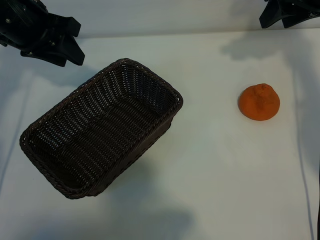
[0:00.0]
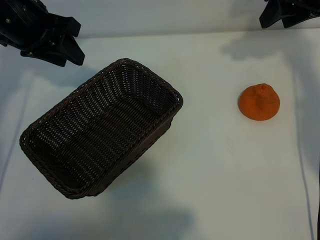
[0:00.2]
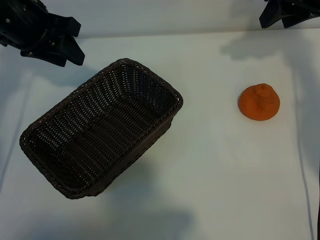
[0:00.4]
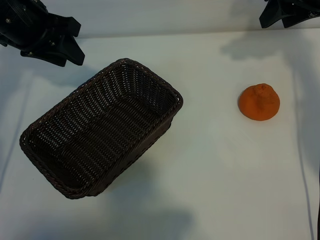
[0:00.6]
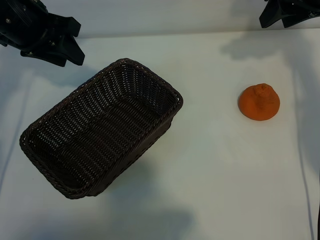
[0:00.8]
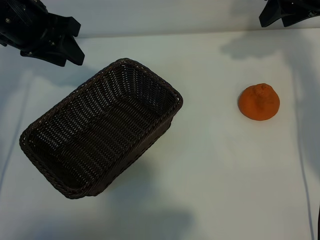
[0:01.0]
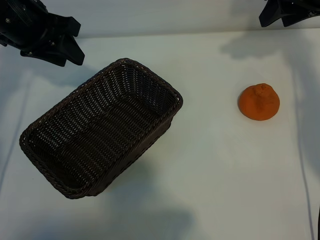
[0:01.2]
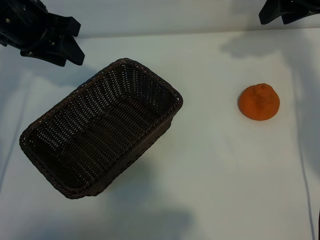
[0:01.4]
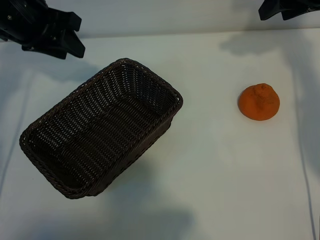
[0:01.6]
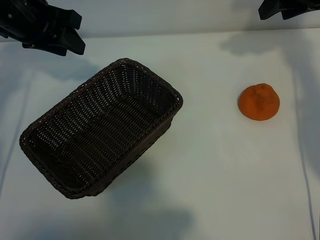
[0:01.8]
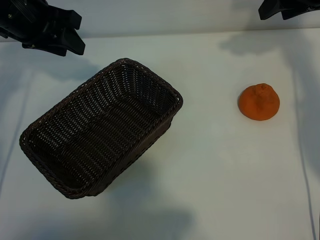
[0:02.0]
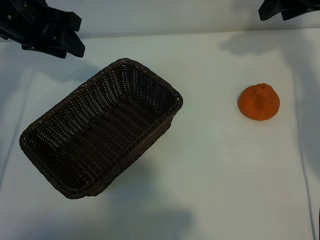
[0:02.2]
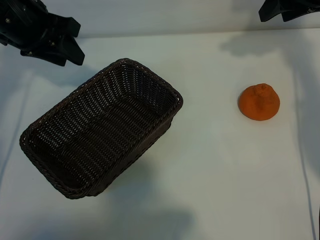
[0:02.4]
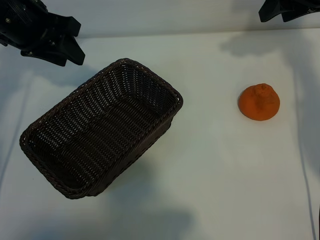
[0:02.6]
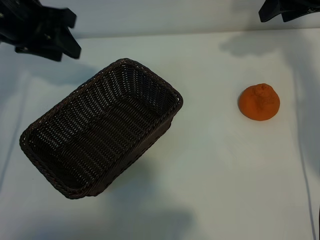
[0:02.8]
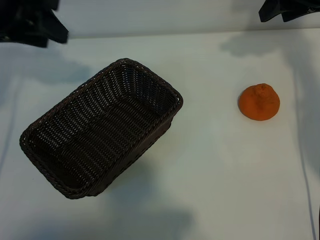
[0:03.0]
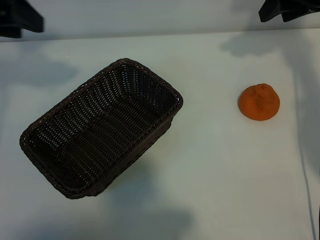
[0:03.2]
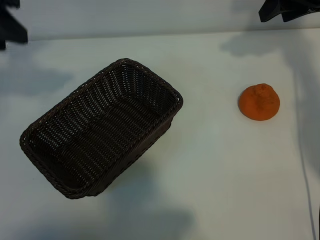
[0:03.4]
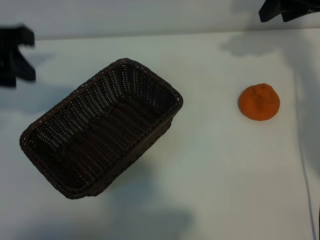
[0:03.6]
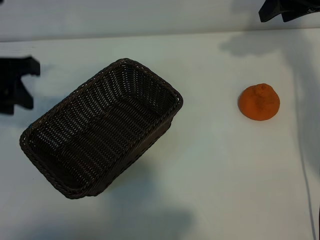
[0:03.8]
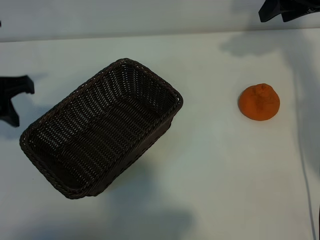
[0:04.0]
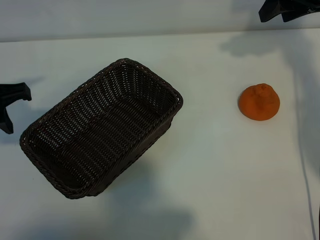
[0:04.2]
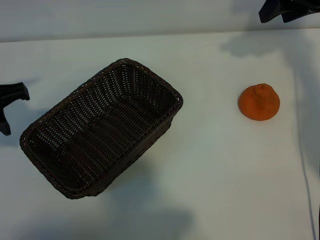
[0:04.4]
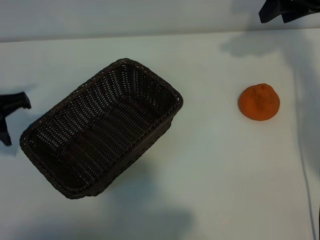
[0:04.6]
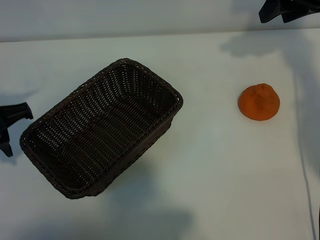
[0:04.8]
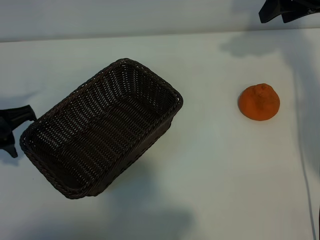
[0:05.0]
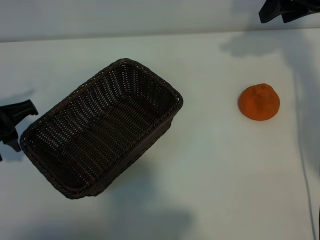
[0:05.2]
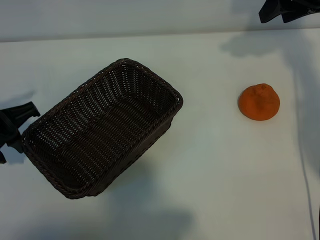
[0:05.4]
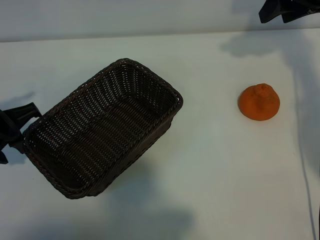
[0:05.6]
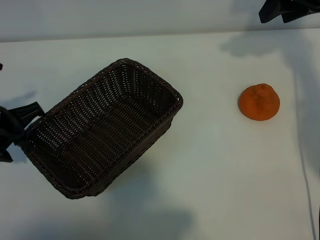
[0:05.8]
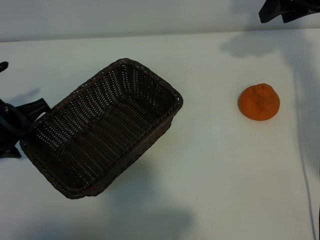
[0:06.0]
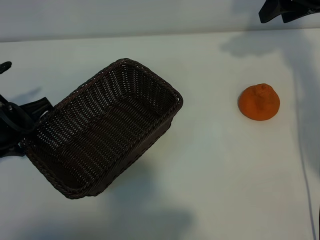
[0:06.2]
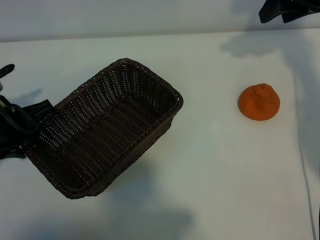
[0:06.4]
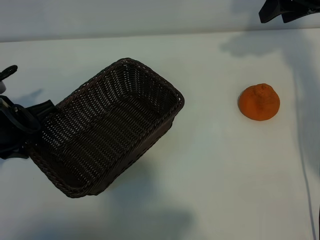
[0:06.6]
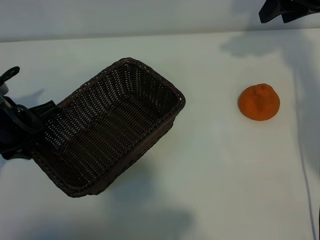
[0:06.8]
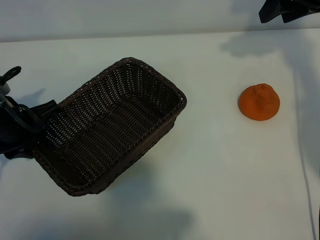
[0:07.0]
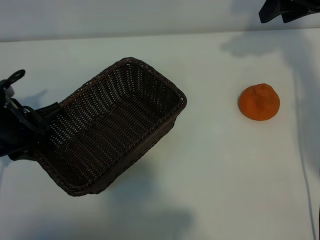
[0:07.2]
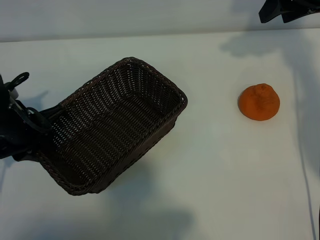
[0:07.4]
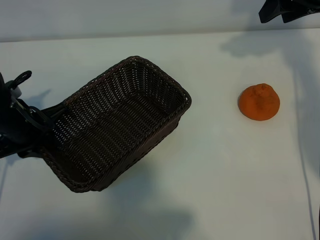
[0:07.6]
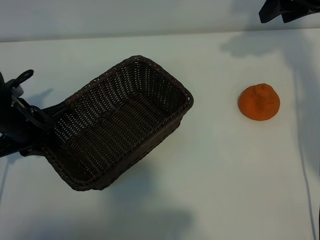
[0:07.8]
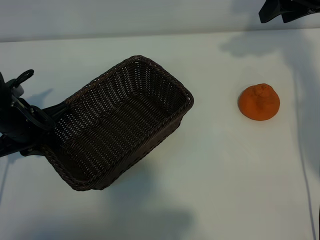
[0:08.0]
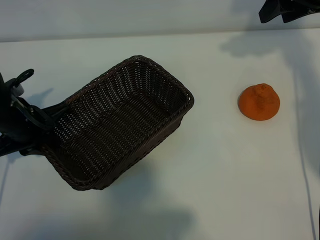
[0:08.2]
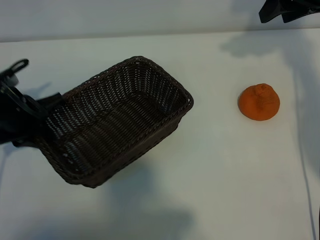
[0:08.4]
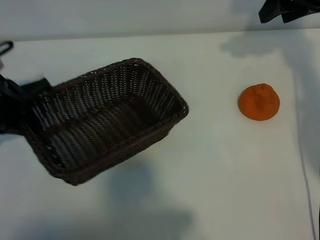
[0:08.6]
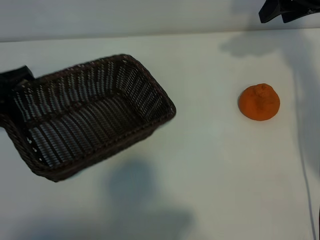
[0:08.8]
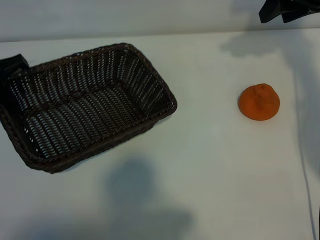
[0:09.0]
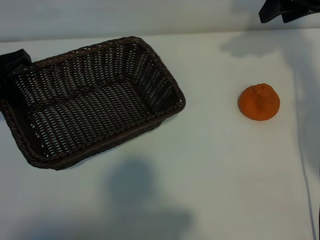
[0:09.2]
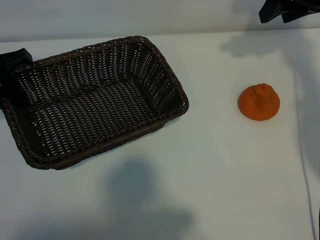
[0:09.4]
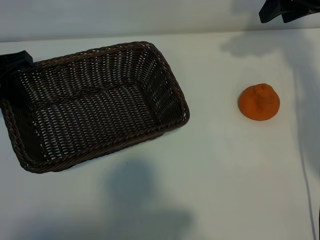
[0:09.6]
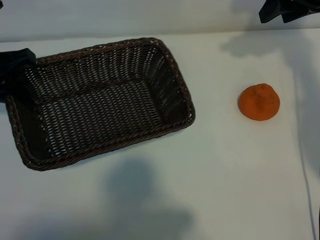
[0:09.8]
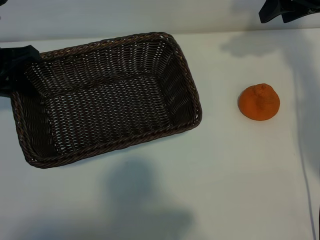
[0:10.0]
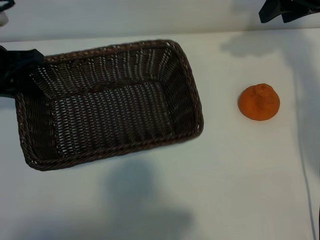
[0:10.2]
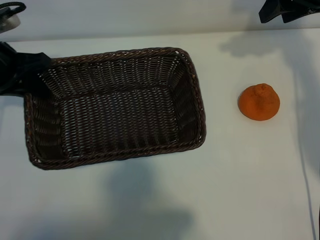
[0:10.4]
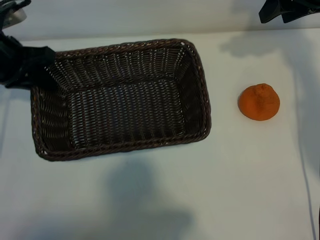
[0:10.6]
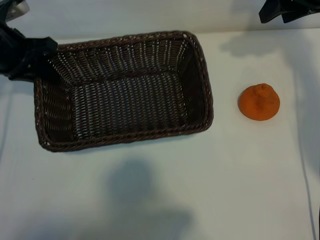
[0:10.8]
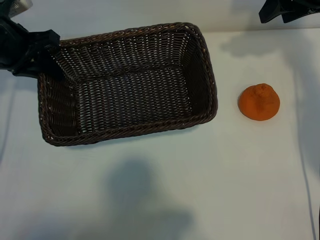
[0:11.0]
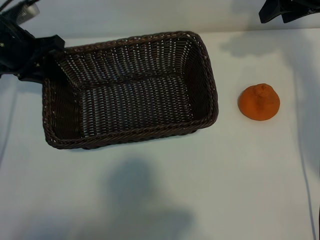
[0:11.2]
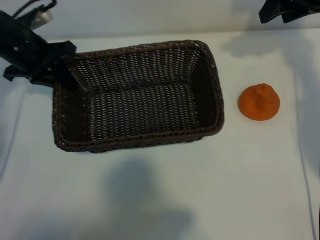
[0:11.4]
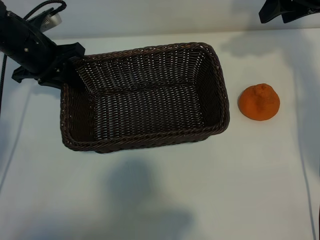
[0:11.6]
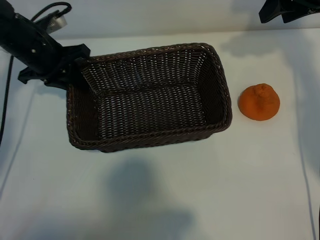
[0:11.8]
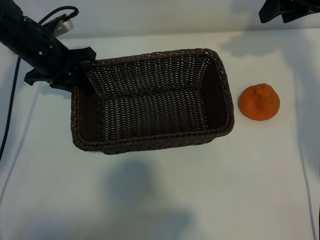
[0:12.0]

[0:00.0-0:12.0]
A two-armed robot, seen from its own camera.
Task of the whole recording: pick up the orange and put it into the basket.
Step, 0:01.4 to 0:07.8: Grasp the basket with left gripper.

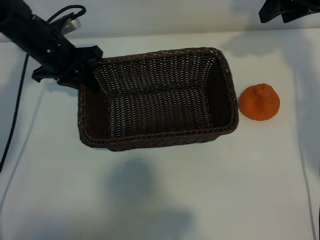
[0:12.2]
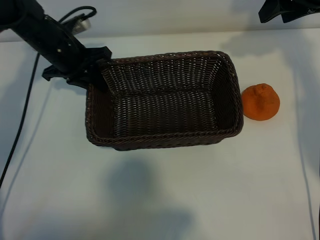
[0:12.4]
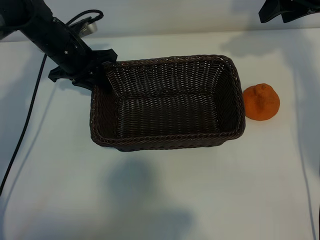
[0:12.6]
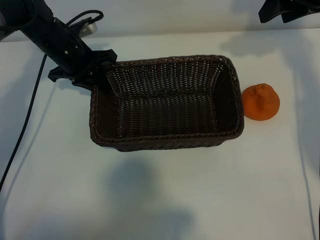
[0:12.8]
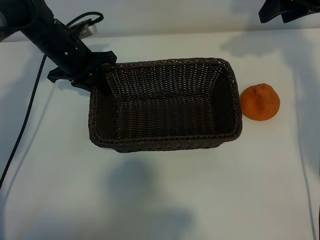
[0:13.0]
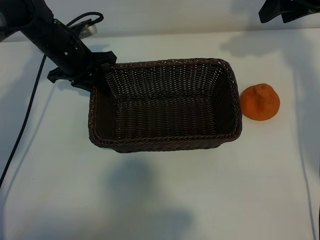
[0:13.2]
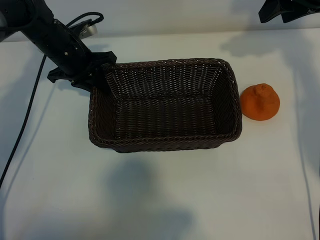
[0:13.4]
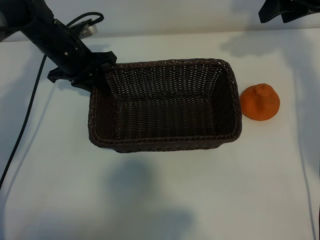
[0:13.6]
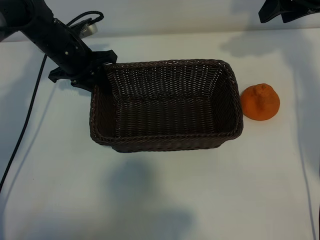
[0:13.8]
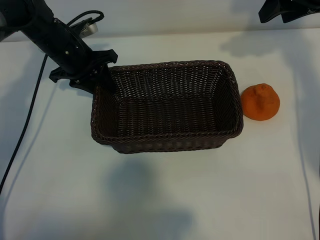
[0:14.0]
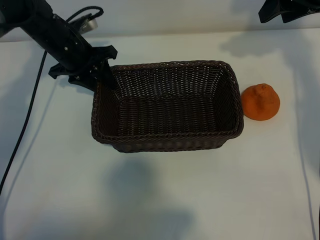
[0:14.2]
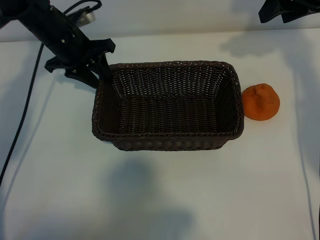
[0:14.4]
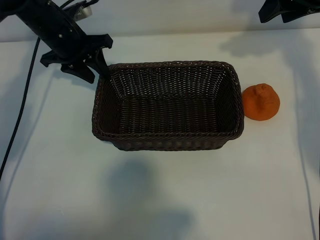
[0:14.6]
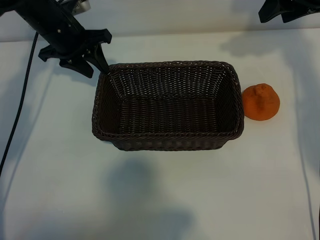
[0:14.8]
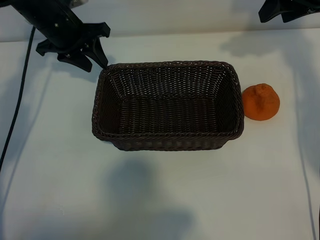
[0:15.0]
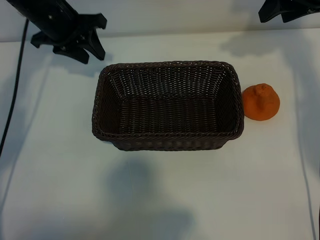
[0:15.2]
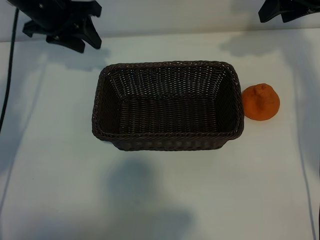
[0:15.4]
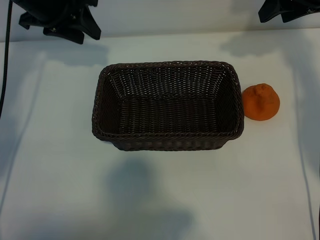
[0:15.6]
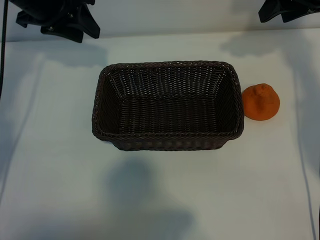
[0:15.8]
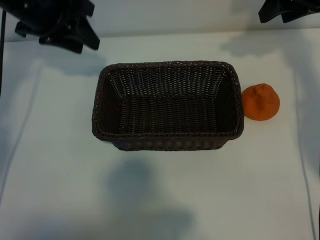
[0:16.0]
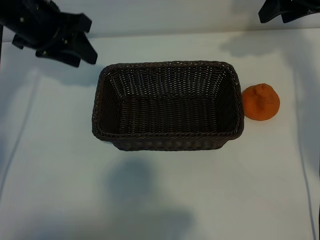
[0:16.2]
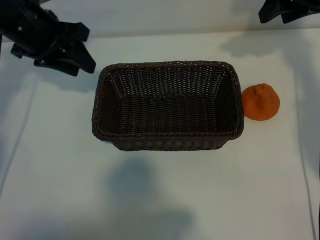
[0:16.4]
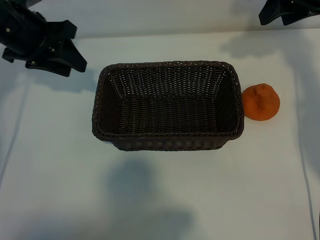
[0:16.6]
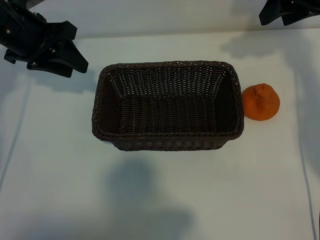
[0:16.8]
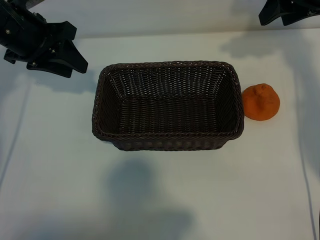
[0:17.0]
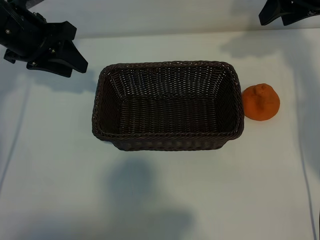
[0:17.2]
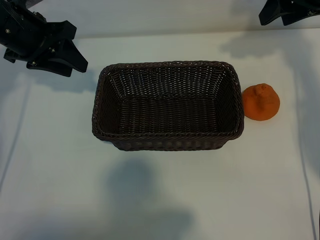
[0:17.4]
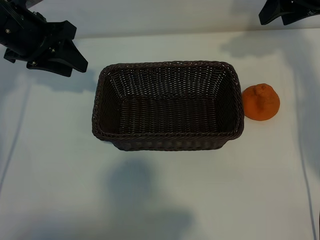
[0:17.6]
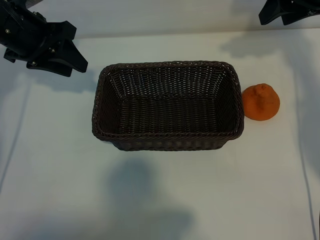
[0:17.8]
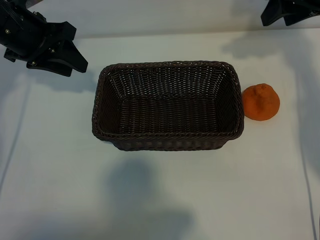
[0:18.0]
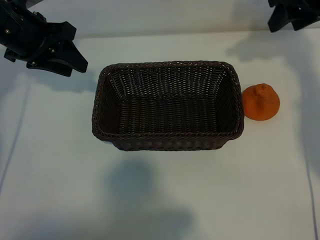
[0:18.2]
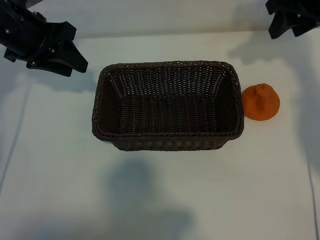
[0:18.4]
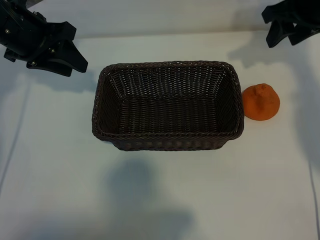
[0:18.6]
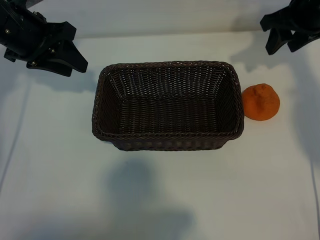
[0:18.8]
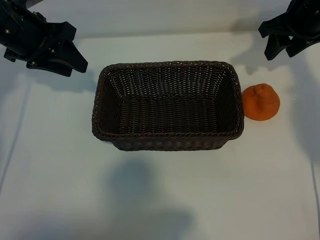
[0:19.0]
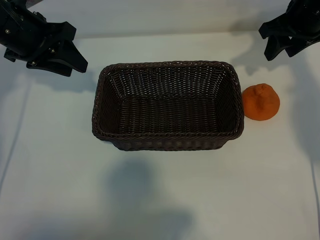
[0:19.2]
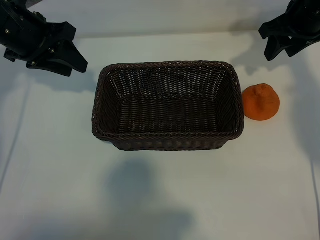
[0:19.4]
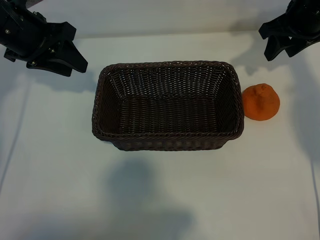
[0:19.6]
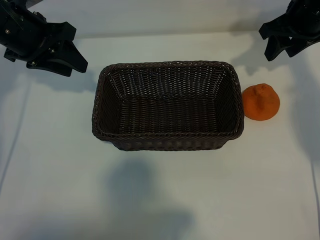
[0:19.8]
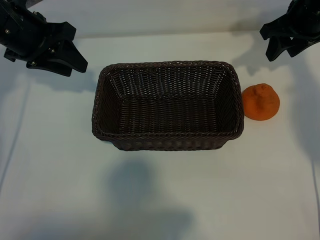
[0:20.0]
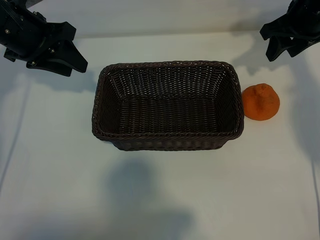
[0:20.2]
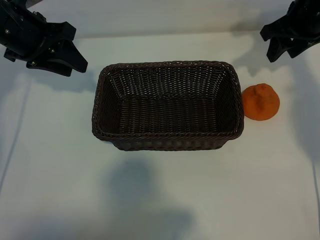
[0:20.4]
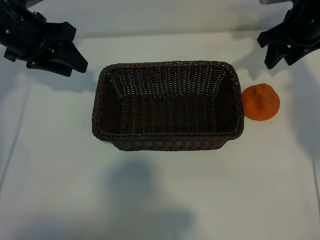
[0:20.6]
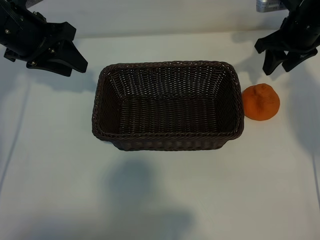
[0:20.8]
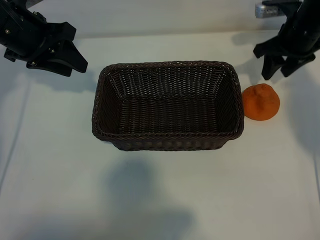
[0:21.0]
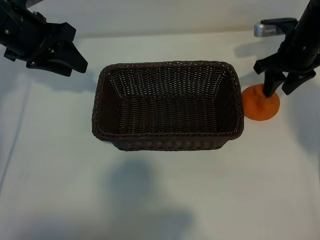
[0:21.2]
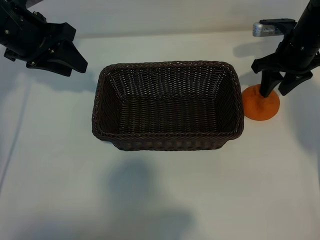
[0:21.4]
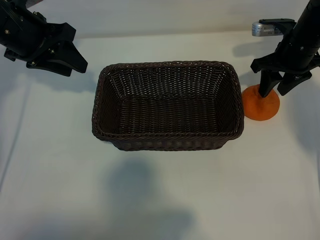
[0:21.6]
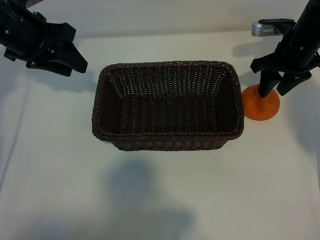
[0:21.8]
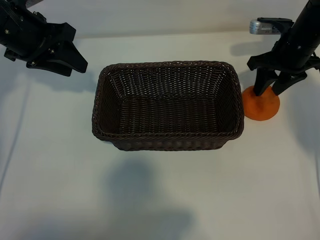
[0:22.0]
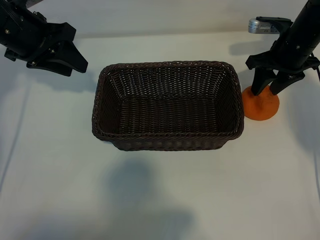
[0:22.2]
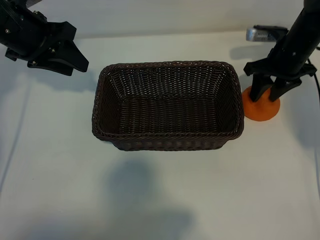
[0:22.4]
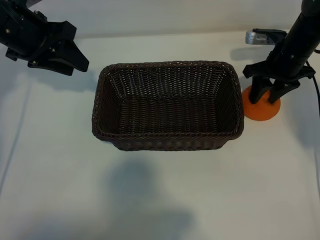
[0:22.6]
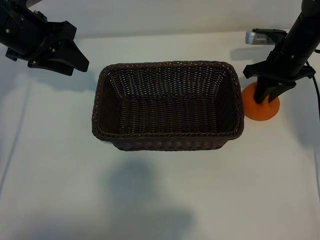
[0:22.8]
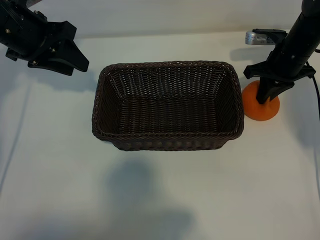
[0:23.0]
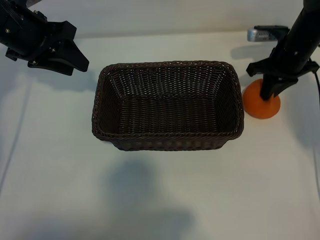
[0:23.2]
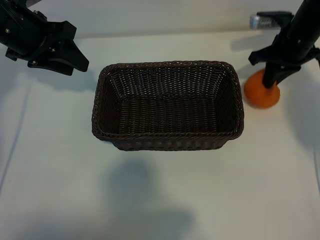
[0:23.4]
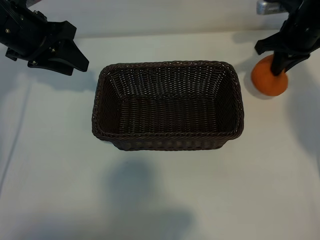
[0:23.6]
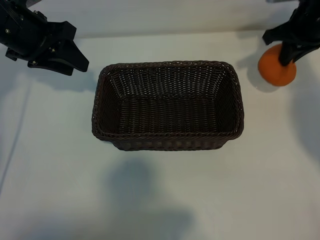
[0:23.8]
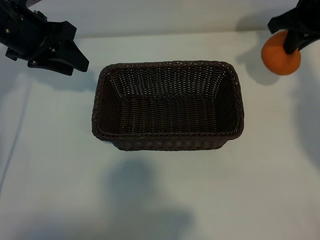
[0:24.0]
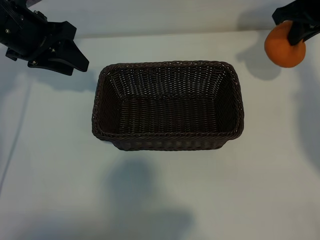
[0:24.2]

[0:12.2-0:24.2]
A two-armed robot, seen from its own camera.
Task of the whole recording: pick up the orange and put it into the basket.
Step, 0:12.2 to 0:14.2: Place the basket in the center of view with left gripper.
Step, 0:14.6 to 0:22.8: Grasp the orange with right gripper.
